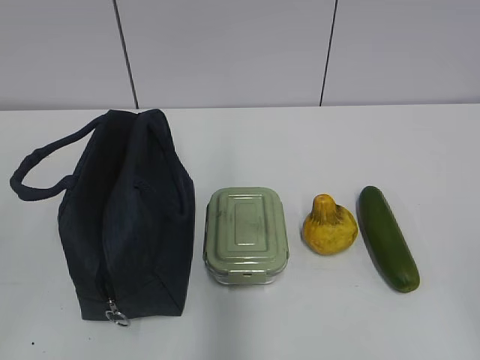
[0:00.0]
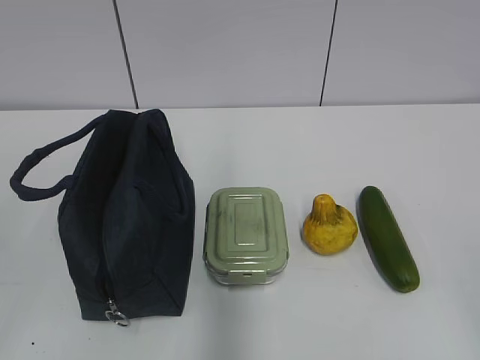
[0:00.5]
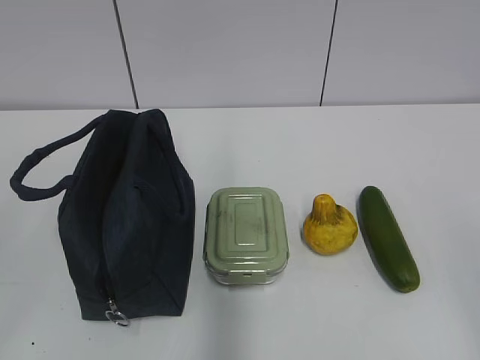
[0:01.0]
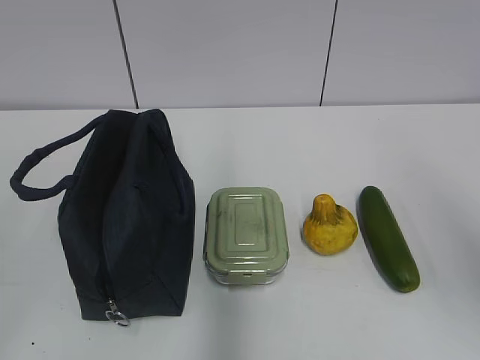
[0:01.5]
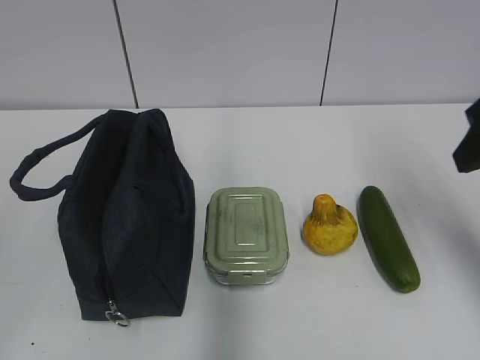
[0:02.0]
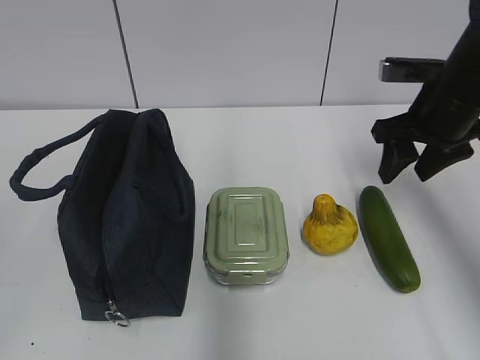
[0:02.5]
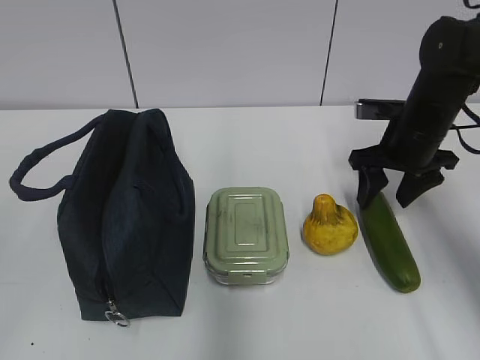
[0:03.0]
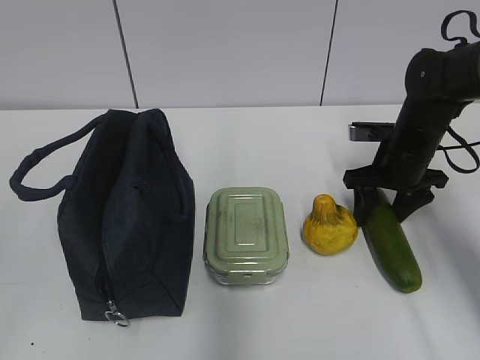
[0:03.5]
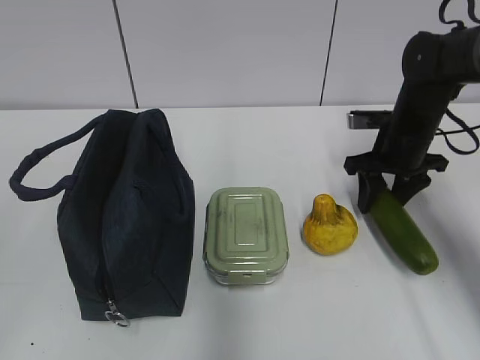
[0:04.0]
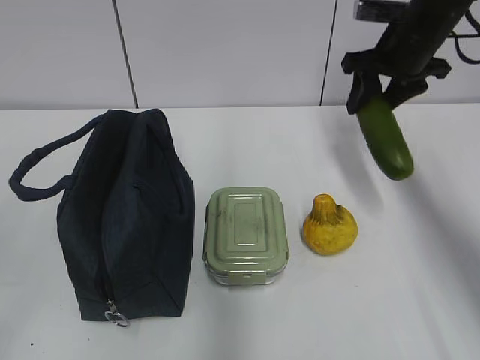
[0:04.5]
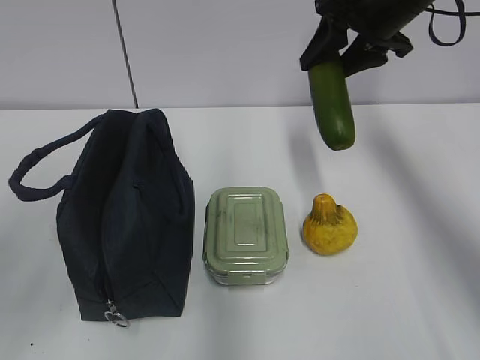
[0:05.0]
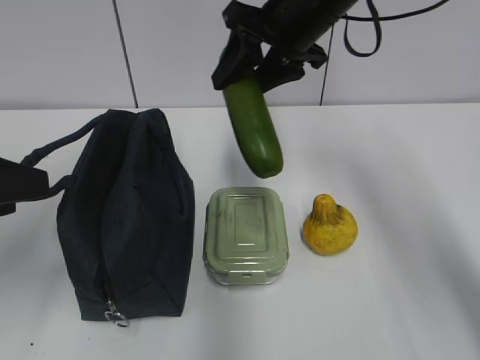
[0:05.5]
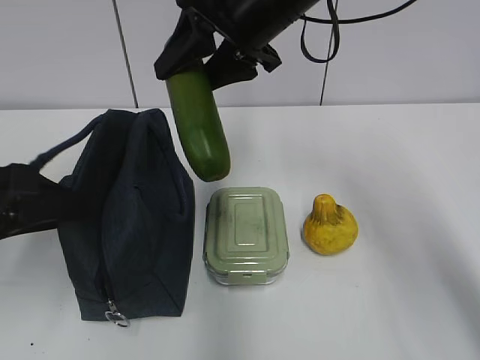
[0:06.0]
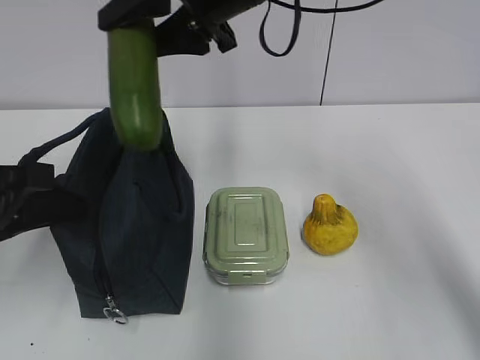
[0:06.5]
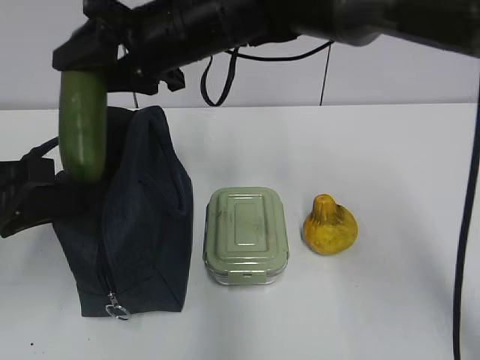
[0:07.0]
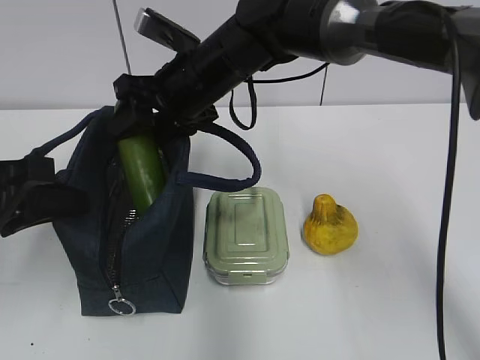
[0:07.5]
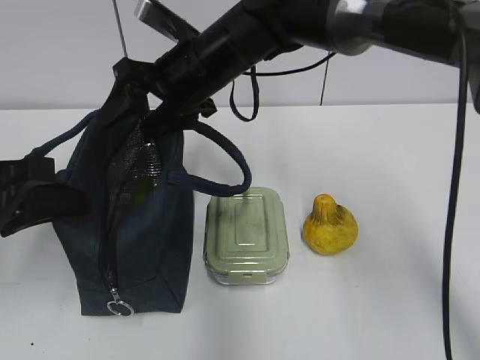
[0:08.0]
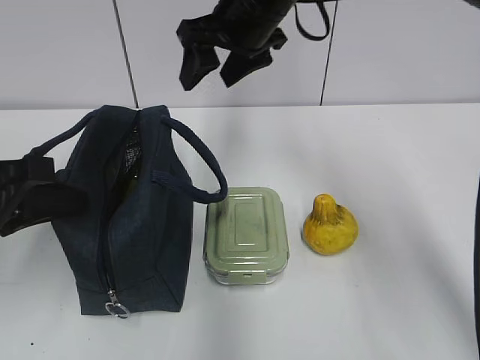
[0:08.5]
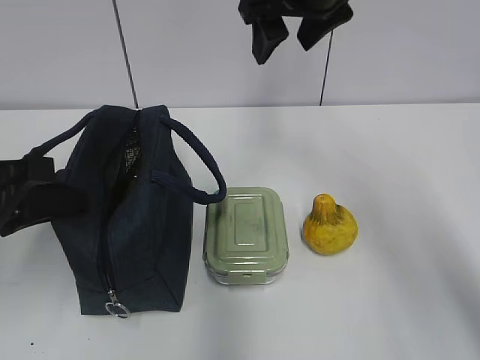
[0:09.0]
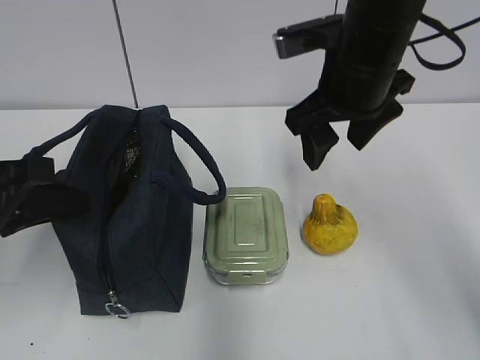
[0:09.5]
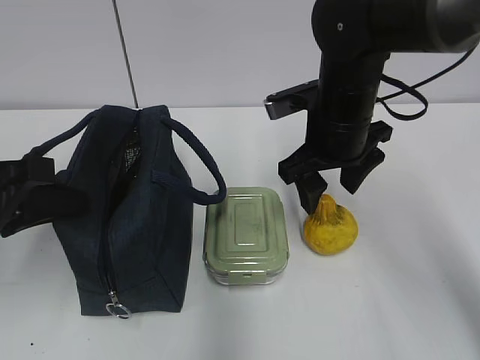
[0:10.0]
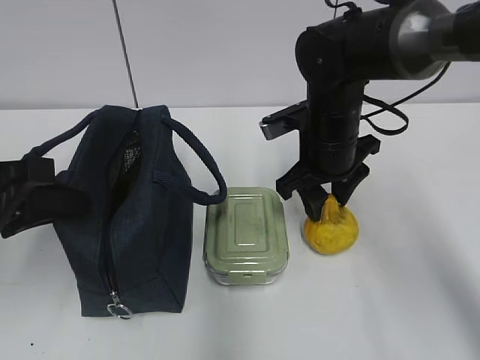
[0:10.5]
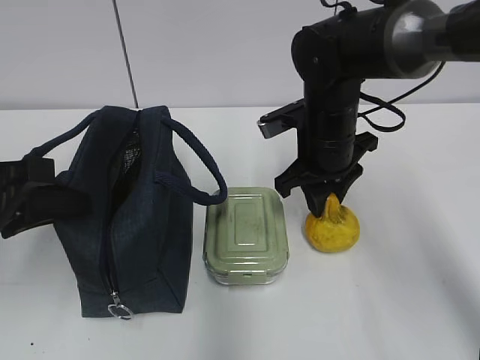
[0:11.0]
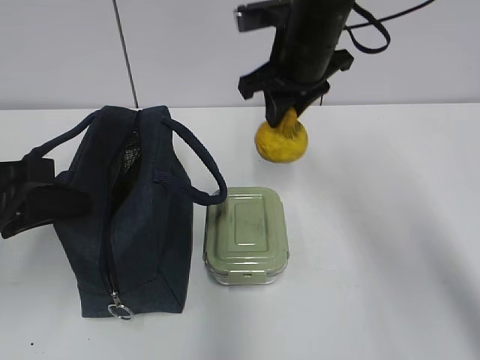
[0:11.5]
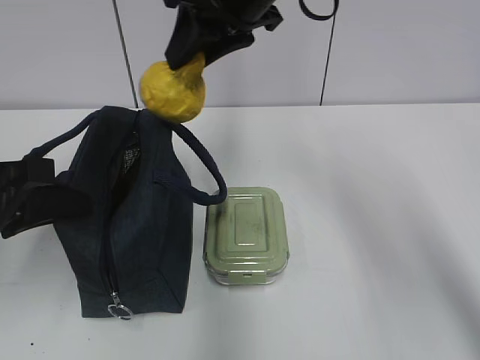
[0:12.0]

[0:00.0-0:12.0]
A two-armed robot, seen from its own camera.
Step, 0:00.0 to 0:03.5: Grab the cucumber with your right hand.
Step, 0:04.0 to 0:07.0: Grab the lunch bag with your left hand.
Step, 0:07.5 to 0:08.0: Place it into the bag with your right hand.
Step, 0:08.5 to 0:10.5: Grab the pear with your right hand.
0:02.0 to 0:04.0: The right gripper heads forward and downward, covering about 25 cm.
0:04.0 to 0:06.0: The left gripper heads forward, covering roughly 20 cm. The right gripper moves to the left and upward, approximately 25 cm.
0:06.0 to 0:08.0: The right gripper moves downward and to the left, approximately 10 cm; the left gripper closes up.
0:08.0 to 0:10.0: The right gripper is displaced to the right by some 15 cm, and goes upward and returns, roughly 10 cm each way.
0:10.0 to 0:12.0: The right gripper travels upward and to the left by some 15 cm, and closes.

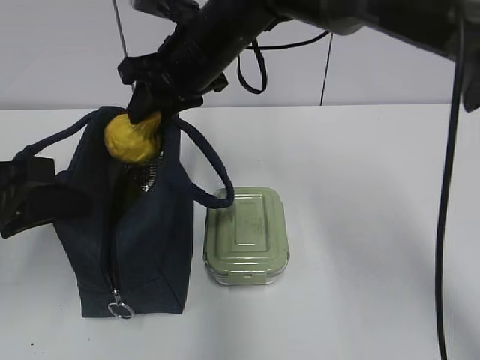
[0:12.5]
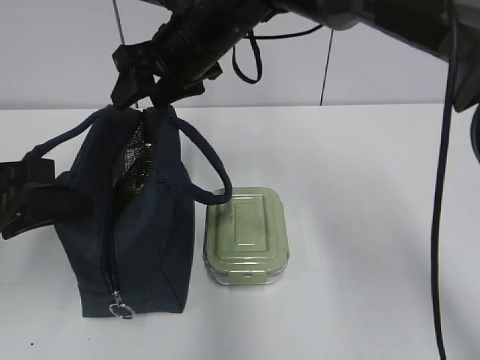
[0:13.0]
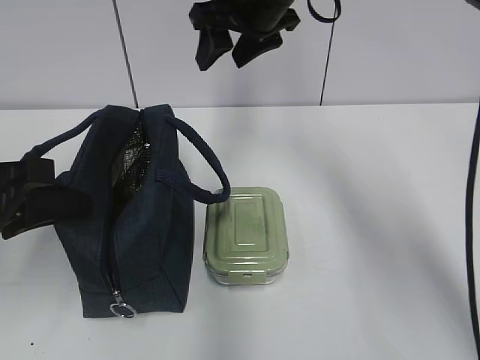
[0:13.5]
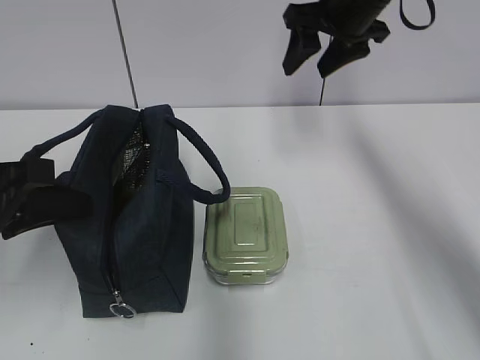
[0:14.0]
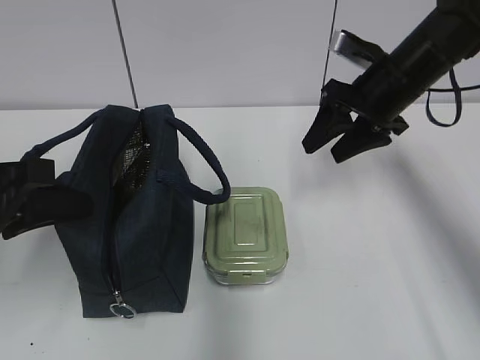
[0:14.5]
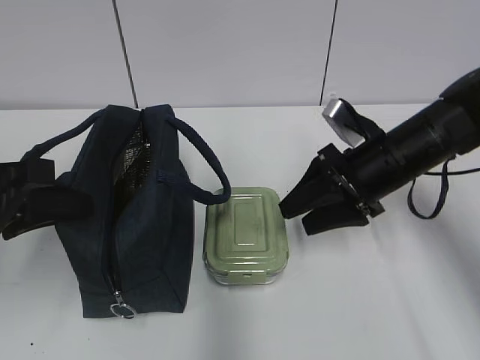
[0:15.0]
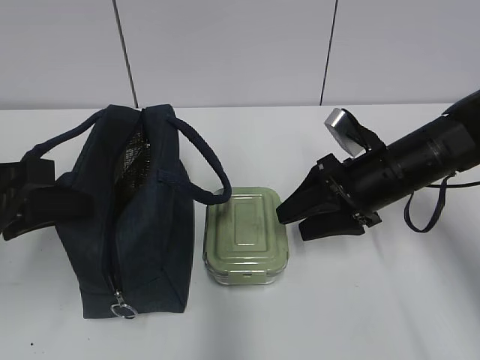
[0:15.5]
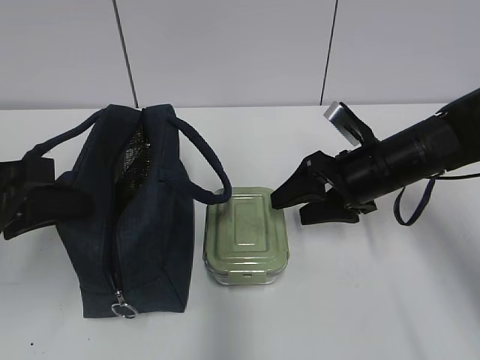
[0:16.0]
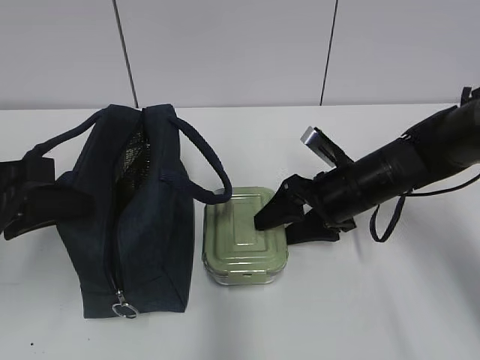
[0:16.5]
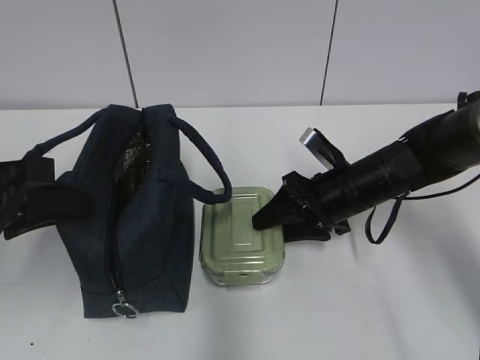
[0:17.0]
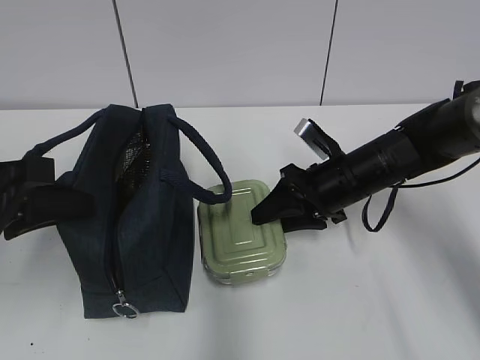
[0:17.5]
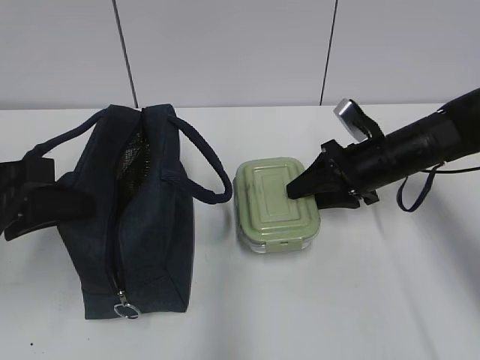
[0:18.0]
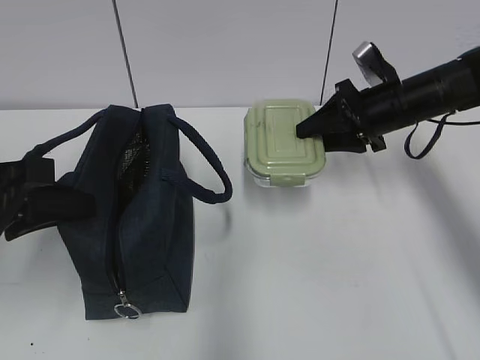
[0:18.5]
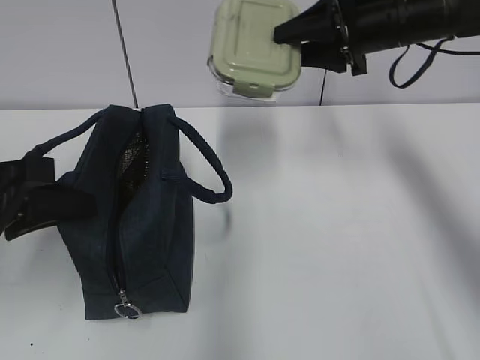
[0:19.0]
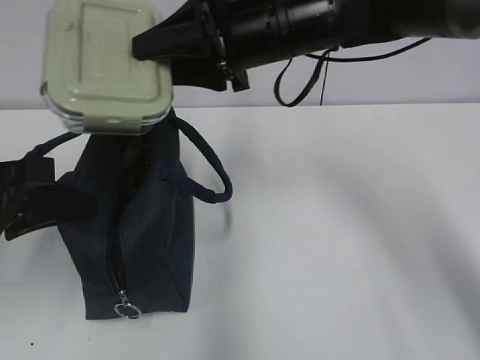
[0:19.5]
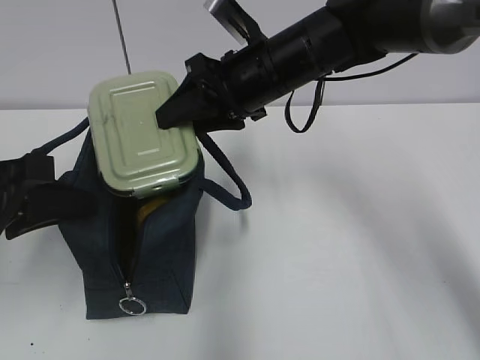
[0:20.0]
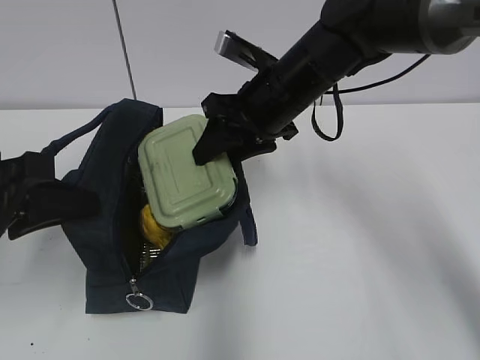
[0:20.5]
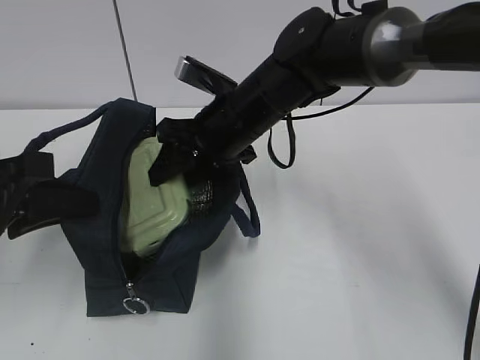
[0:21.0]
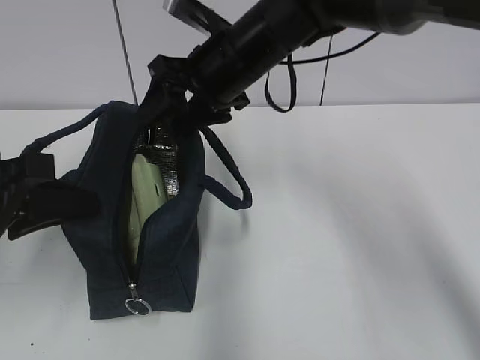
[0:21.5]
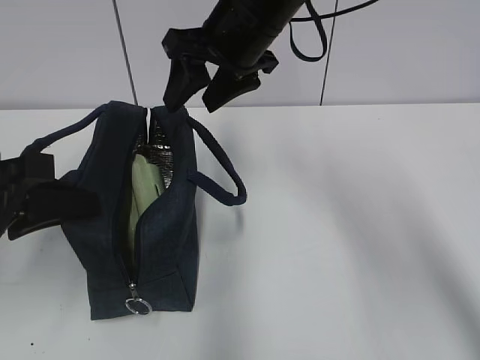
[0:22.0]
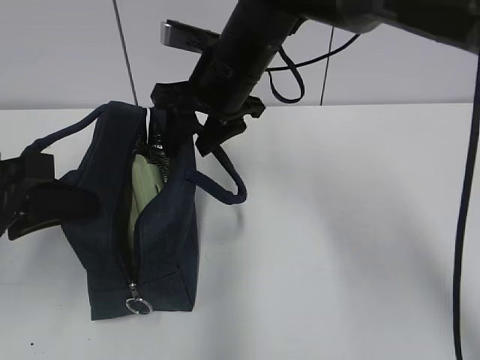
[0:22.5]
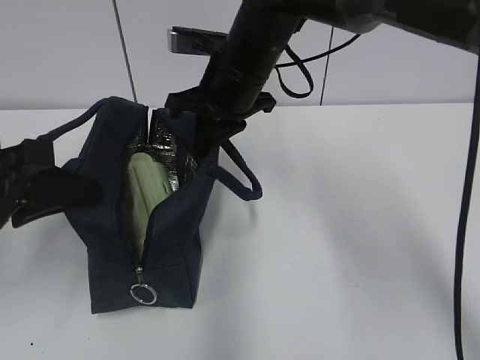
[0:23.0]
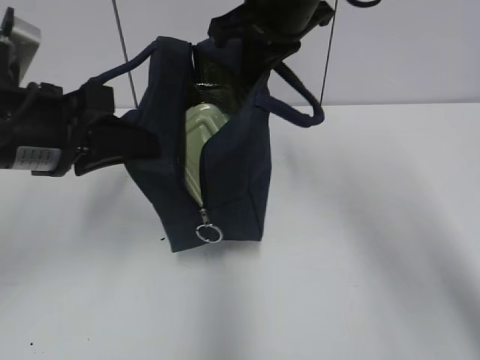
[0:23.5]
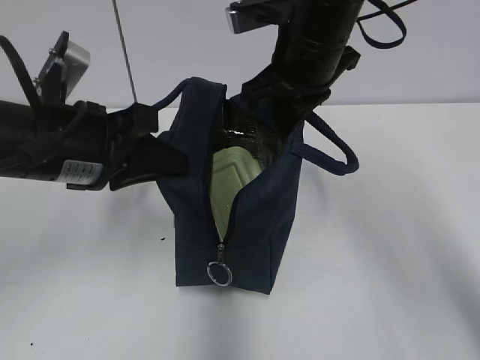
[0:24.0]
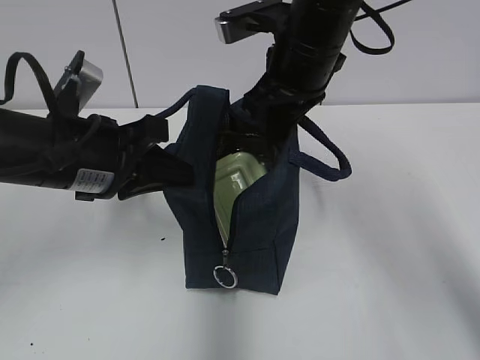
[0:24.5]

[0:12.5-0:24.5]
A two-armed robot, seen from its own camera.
Step, 0:13.0 to 0:17.0: Grab the lunch box with your right hand.
Step, 0:21.5 to 0:23.0: Grab the lunch bag with your right hand.
0:12.5 to 0:14.5: The right gripper shifts roughly 20 cm to the right, and opens.
0:14.5 to 0:16.5: The right gripper shifts roughly 10 cm downward.
0:16.5 to 0:18.5: The right gripper is displaced upward, to the right and forward by roughly 15 cm, and closes.
0:18.5 to 0:20.5: The right gripper travels to the left by about 15 cm.
0:20.5 to 0:22.5: The right gripper travels to the left by about 5 cm, and moves about 5 cm upward and comes back.
0:22.5 to 0:24.5: The right gripper heads to the right, covering approximately 5 cm, and closes; the left gripper goes roughly 10 cm to the right and forward.

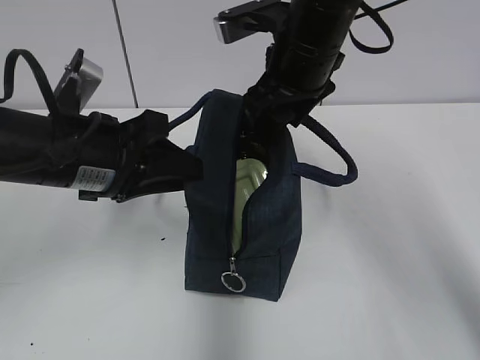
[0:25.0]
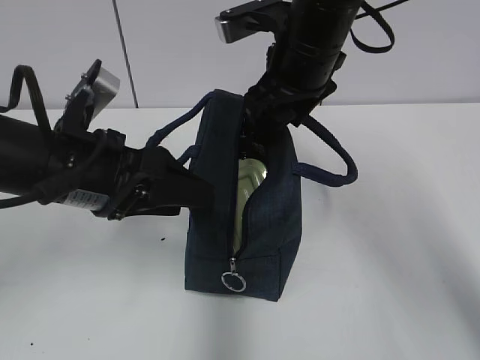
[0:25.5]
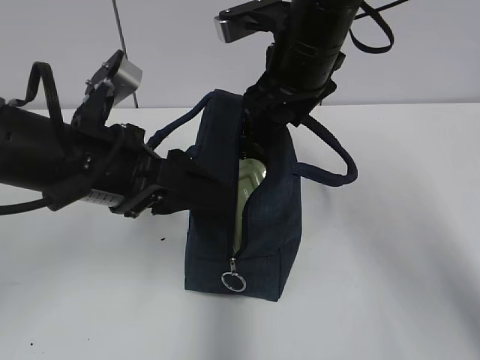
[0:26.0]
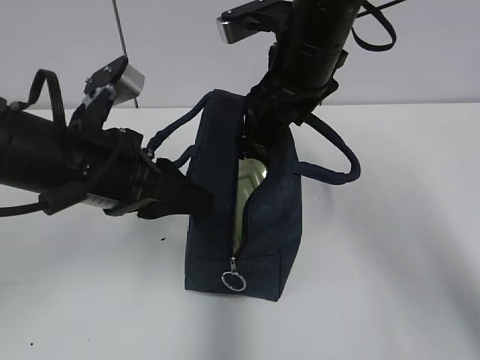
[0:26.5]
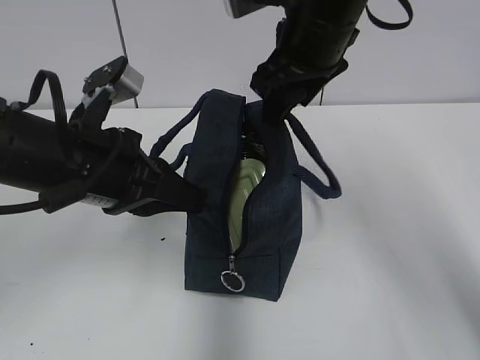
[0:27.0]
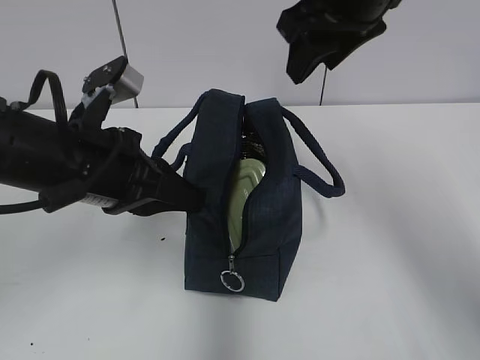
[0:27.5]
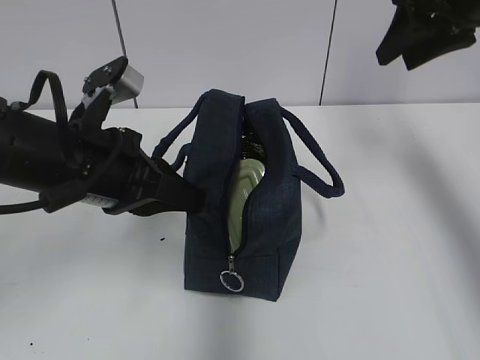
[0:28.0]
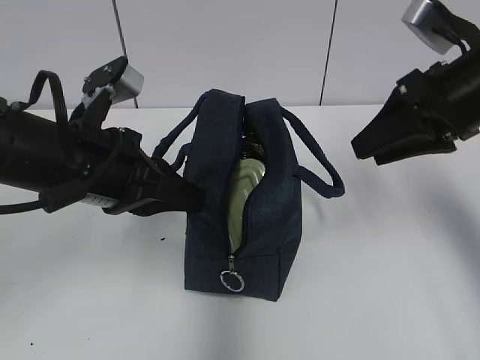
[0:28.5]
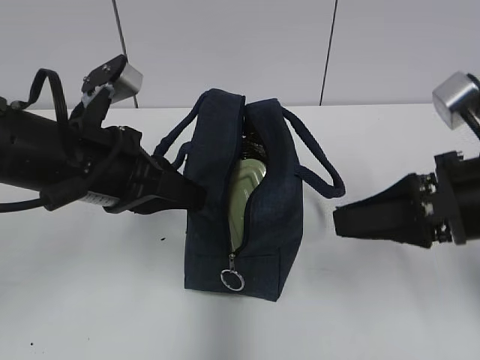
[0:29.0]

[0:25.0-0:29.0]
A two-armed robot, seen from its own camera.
0:25.0 to 0:27.0: The left gripper closes up.
0:27.0 to 0:29.0: The right gripper travels backward, to the right and downward by about 20 cm.
